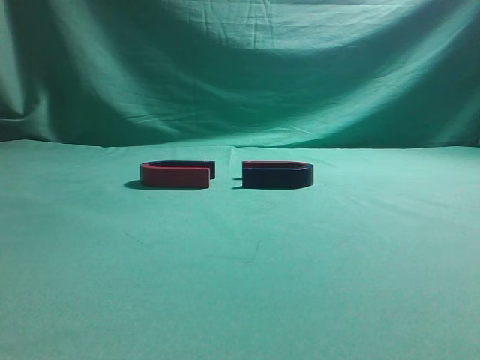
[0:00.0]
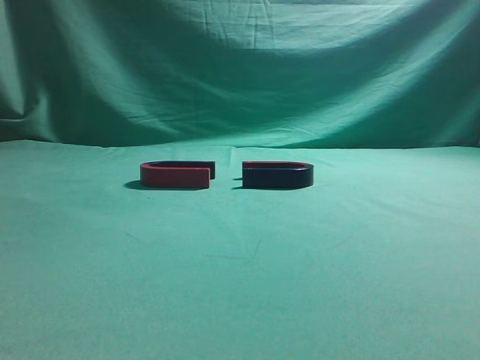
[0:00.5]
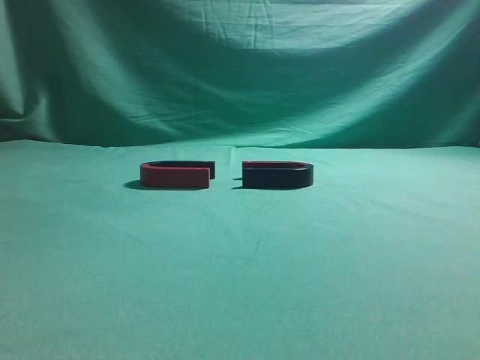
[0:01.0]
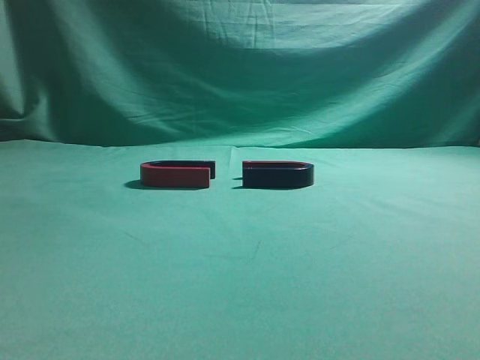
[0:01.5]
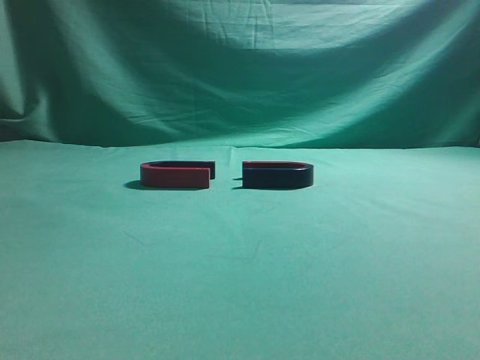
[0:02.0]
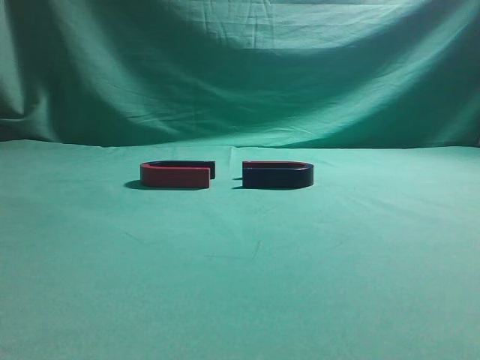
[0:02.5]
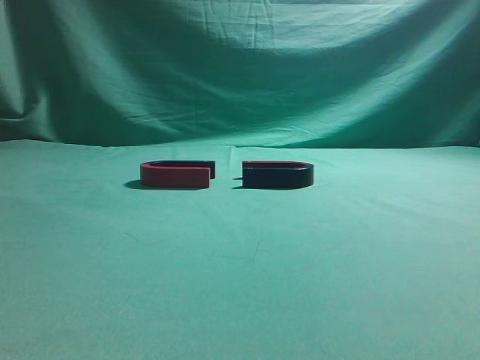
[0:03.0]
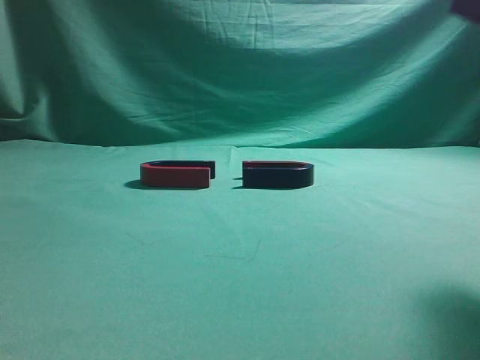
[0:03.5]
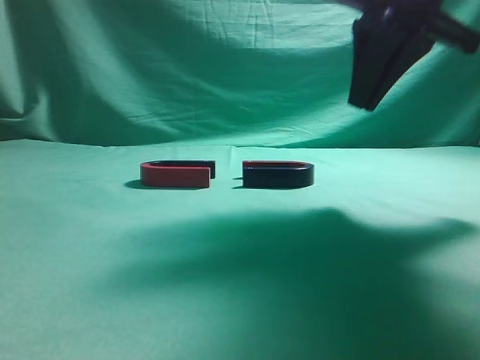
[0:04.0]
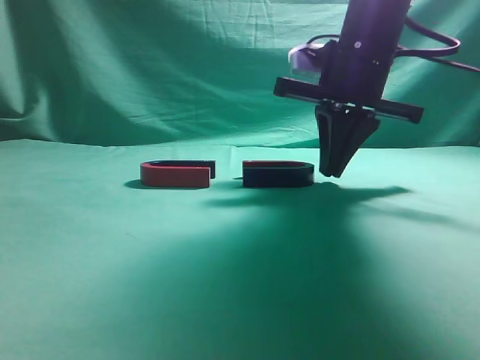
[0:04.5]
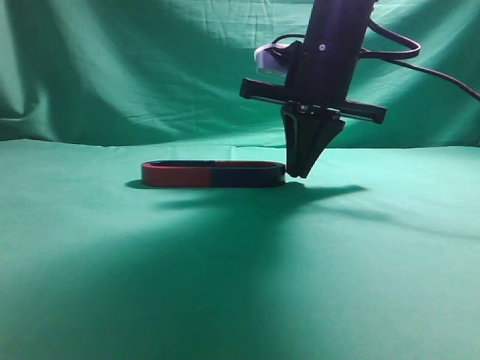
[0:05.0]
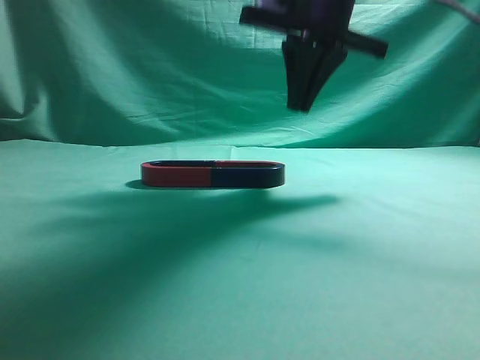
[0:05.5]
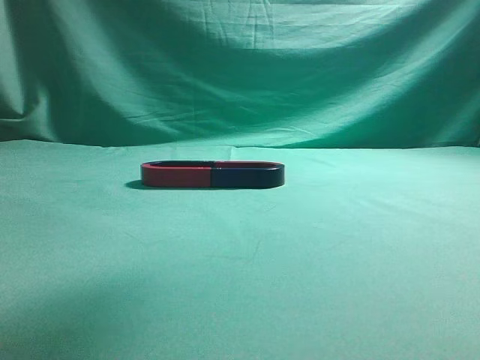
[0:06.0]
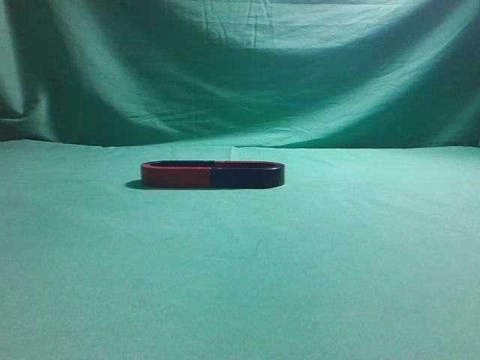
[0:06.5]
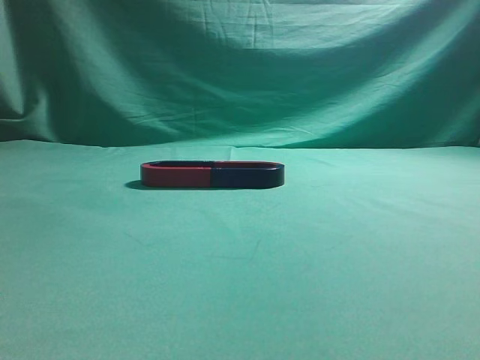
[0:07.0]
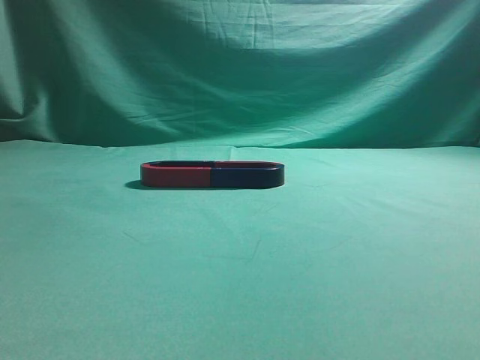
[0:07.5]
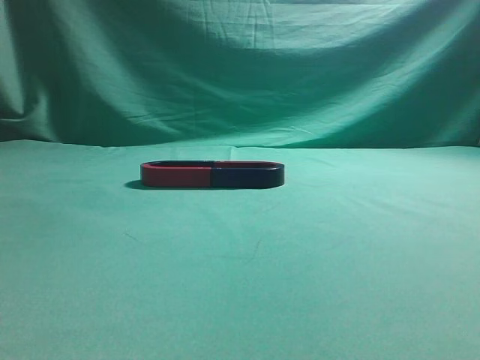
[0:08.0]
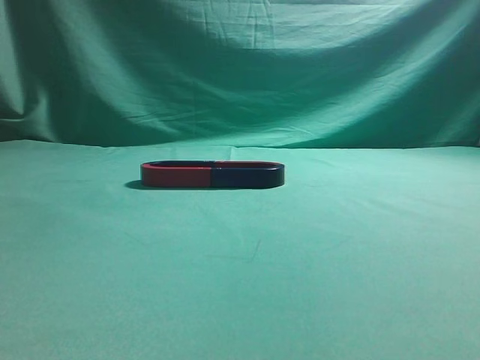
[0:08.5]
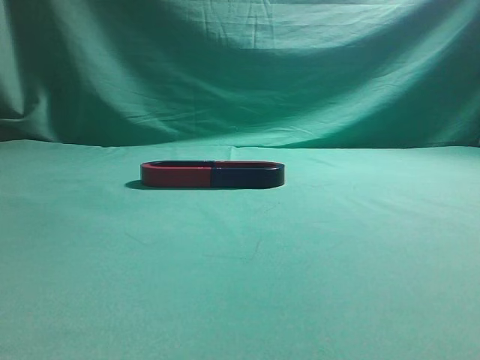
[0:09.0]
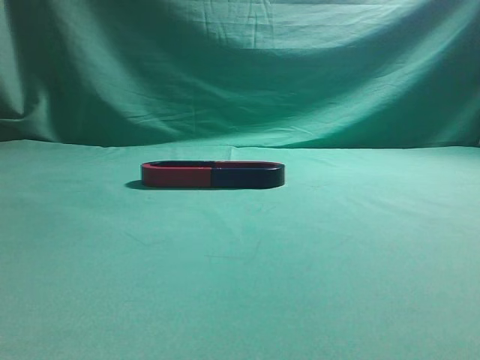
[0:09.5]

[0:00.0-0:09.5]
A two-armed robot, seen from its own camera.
Task of the whole recording: push the magnet on the table from its original position to another position.
Step, 0:00.0 to 0:05.0: Push the magnet on the right to connect the magnet on the left.
0:02.0 to 0:04.0: The right gripper heads forward and to the left, covering roughly 30 cm.
0:04.0 to 0:05.5: The right gripper is displaced forward and to the left by roughly 10 cm, and opens up.
0:05.5 to 0:07.5: The right gripper travels backward and to the right by roughly 40 cm.
